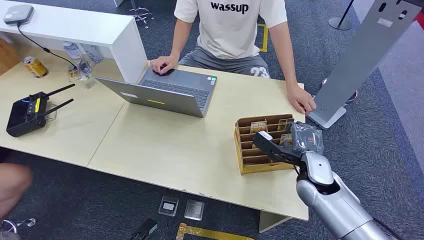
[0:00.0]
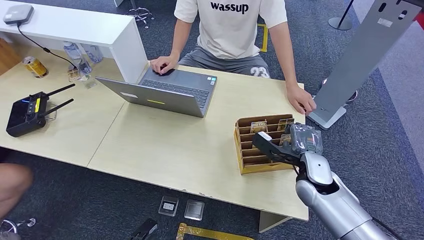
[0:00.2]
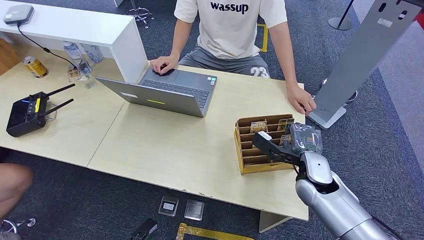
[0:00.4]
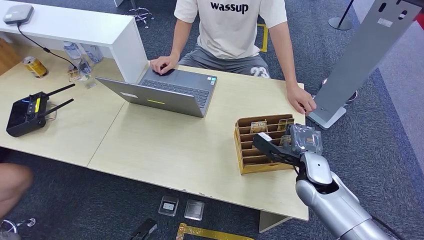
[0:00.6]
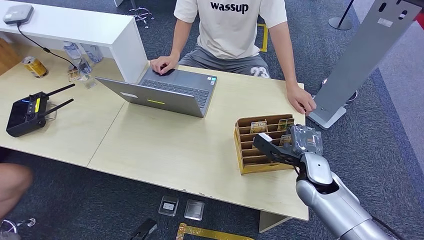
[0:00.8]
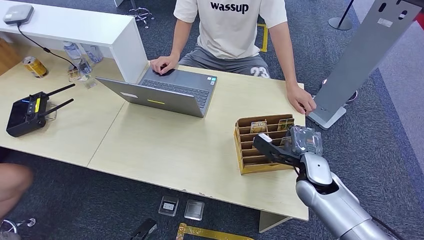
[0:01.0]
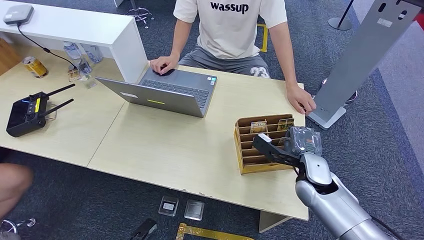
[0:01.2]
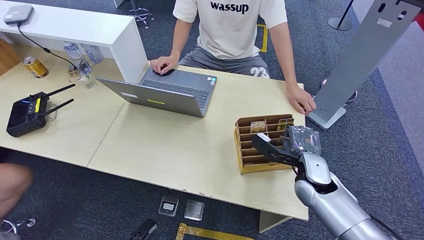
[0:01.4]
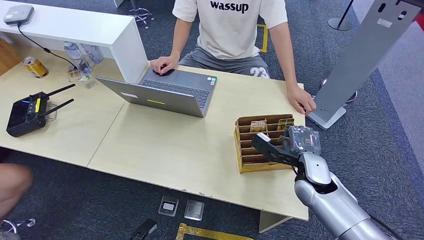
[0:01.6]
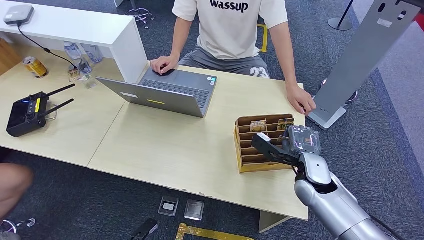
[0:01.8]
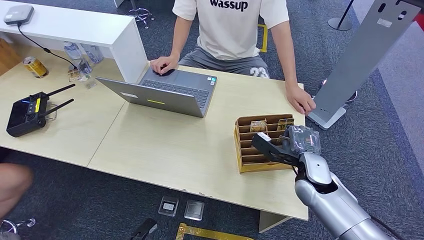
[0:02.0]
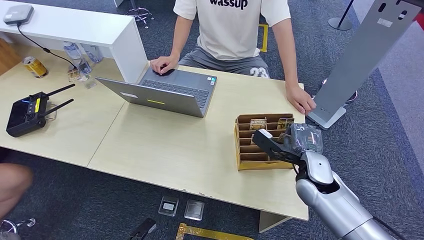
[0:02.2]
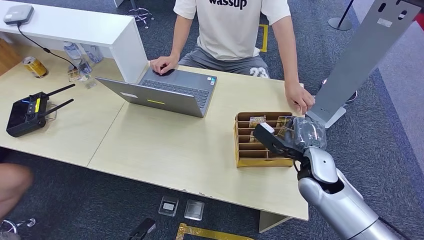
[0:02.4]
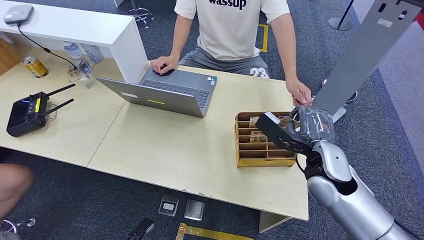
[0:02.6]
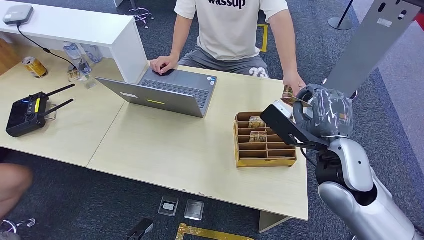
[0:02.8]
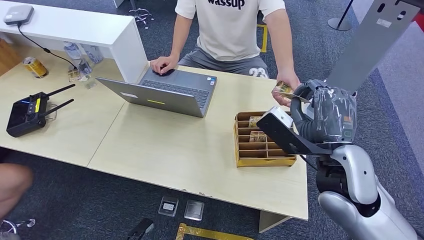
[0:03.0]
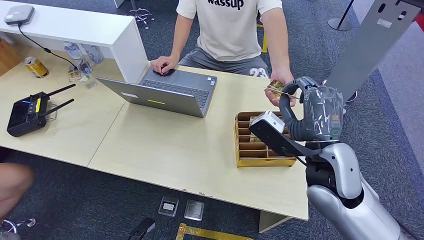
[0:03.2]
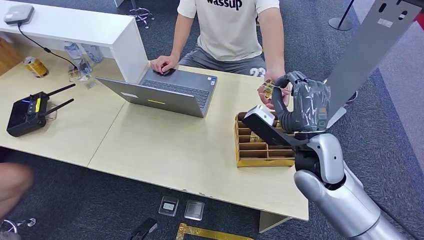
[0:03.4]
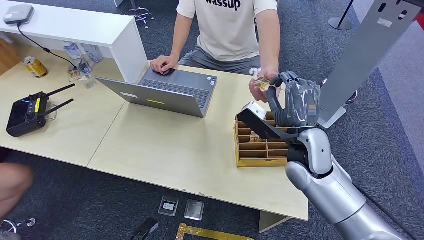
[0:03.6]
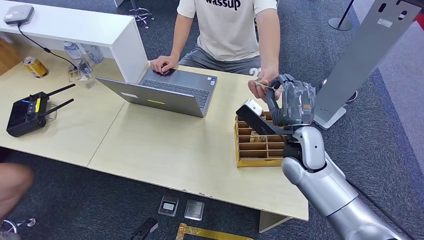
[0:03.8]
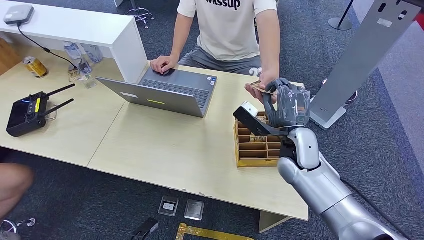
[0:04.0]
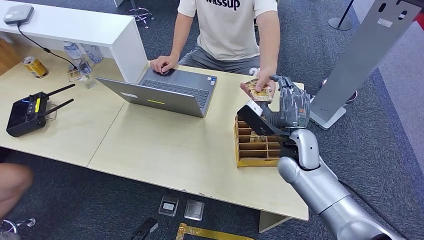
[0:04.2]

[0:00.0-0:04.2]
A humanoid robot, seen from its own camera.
Task of the whole recording: Pick up the card and hand it over to the target person.
Step, 0:00.0 to 0:02.2: Pick up the key card from the card box.
Step, 0:03.2 to 0:04.2: Hand the key card to the target.
0:01.4 to 0:02.8: The right hand moves upward, approximately 15 cm.
0:02.8 to 0:04.2: The right hand goes some 15 cm downward and forward.
